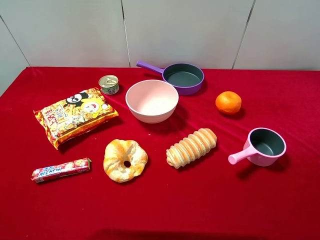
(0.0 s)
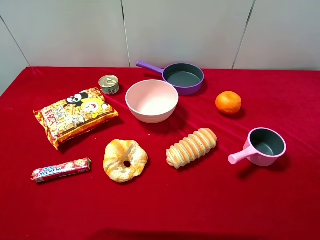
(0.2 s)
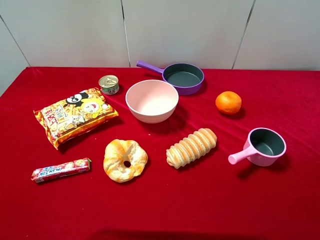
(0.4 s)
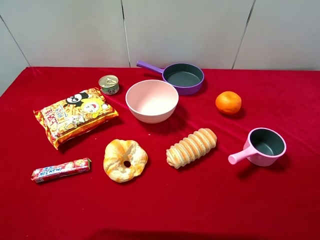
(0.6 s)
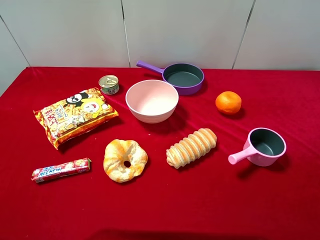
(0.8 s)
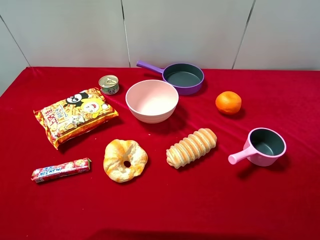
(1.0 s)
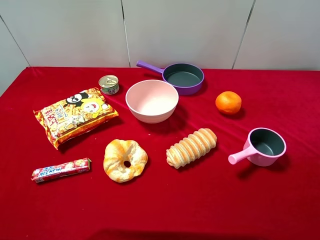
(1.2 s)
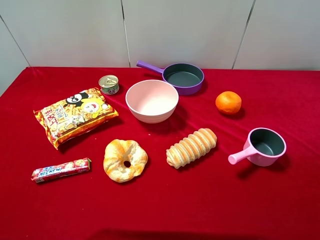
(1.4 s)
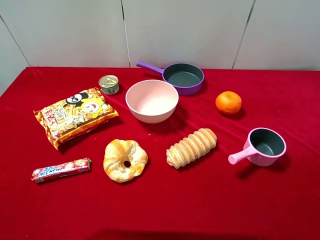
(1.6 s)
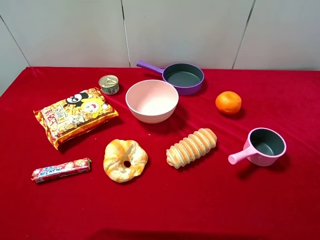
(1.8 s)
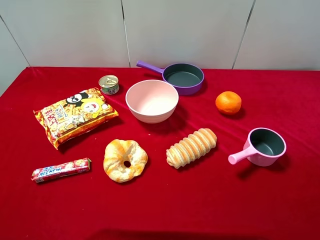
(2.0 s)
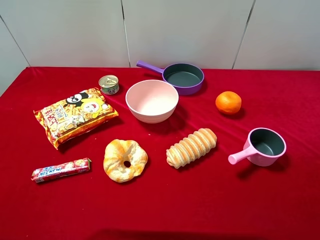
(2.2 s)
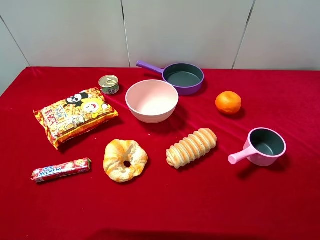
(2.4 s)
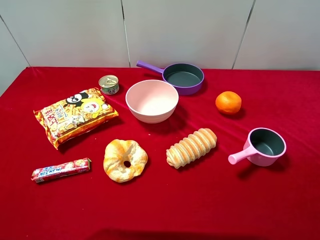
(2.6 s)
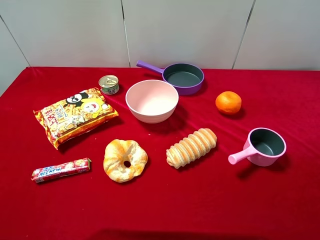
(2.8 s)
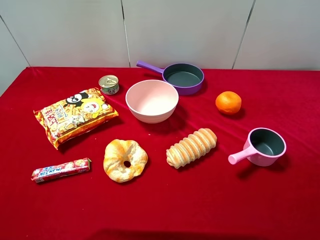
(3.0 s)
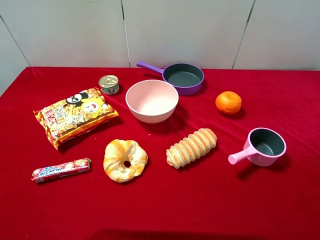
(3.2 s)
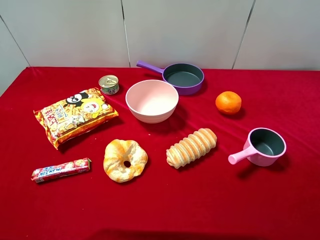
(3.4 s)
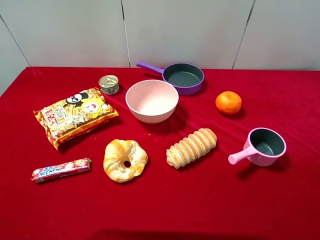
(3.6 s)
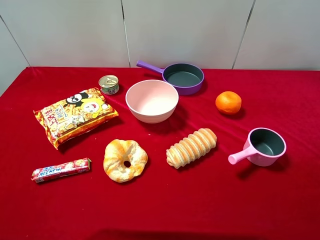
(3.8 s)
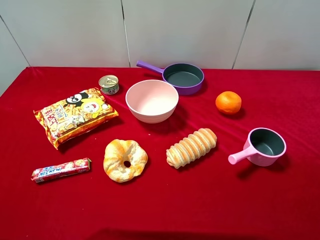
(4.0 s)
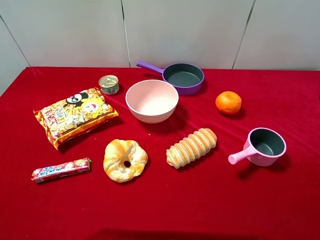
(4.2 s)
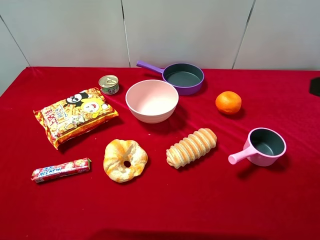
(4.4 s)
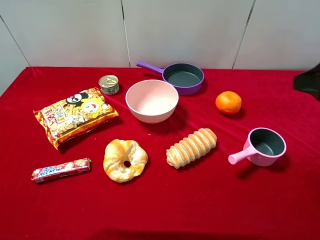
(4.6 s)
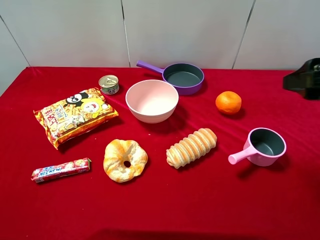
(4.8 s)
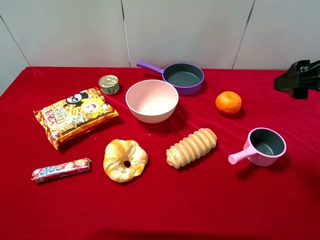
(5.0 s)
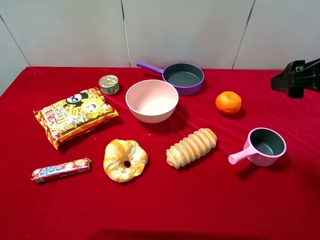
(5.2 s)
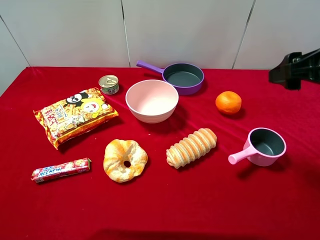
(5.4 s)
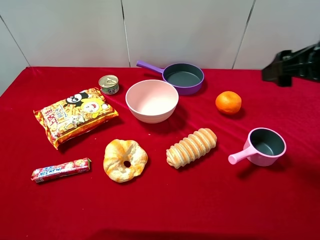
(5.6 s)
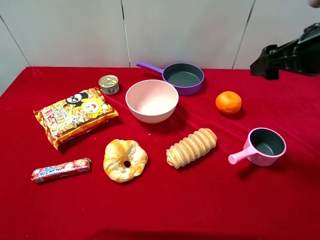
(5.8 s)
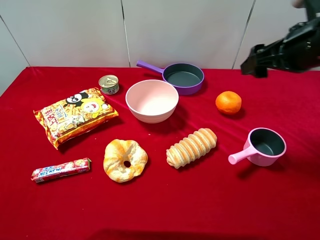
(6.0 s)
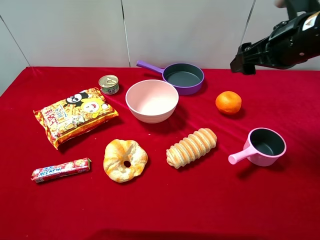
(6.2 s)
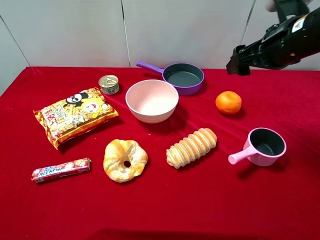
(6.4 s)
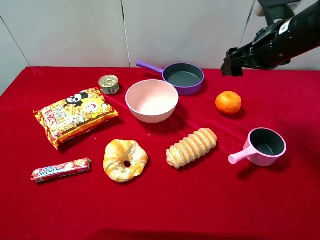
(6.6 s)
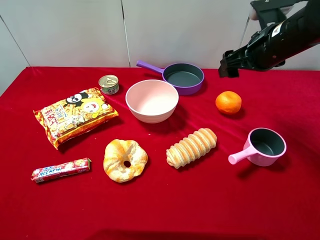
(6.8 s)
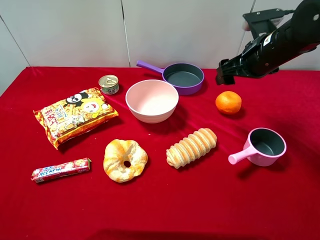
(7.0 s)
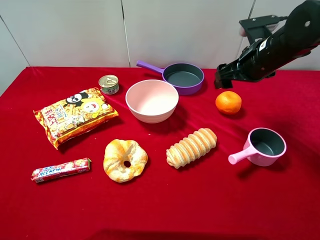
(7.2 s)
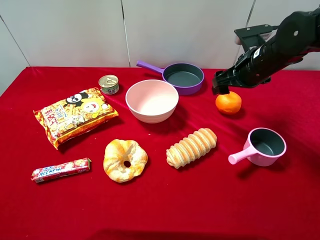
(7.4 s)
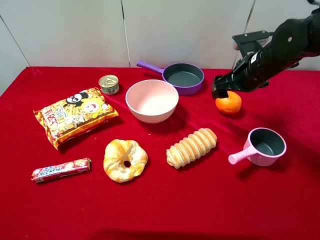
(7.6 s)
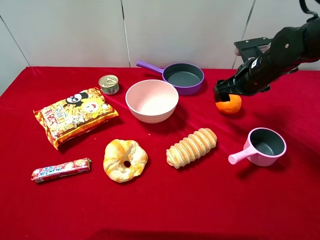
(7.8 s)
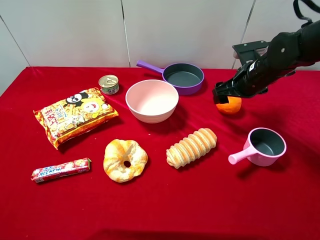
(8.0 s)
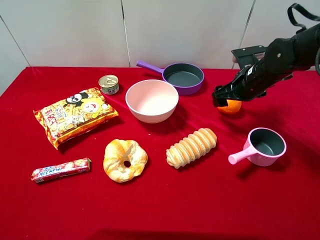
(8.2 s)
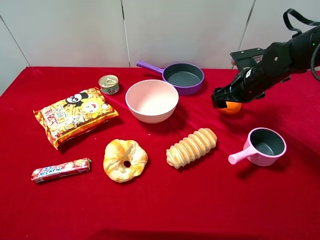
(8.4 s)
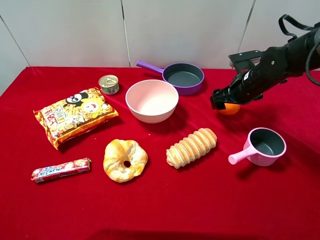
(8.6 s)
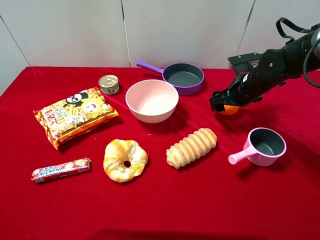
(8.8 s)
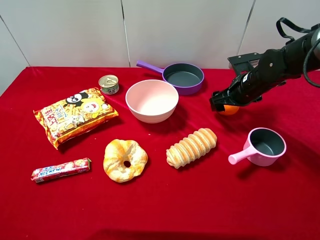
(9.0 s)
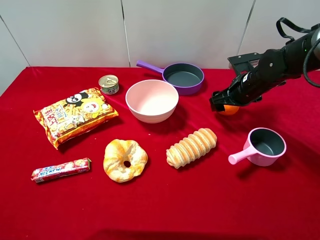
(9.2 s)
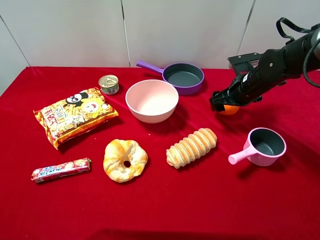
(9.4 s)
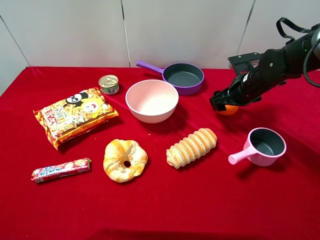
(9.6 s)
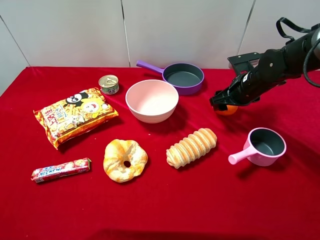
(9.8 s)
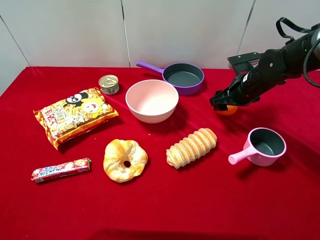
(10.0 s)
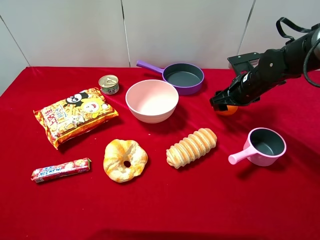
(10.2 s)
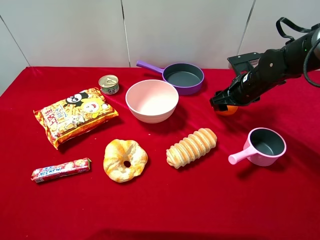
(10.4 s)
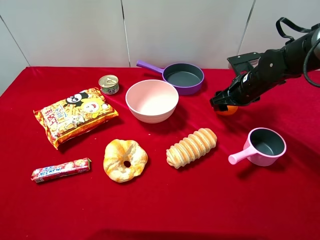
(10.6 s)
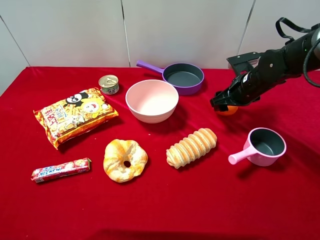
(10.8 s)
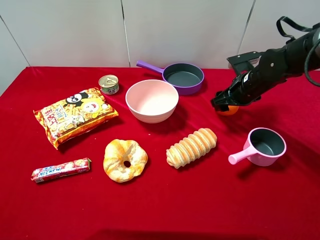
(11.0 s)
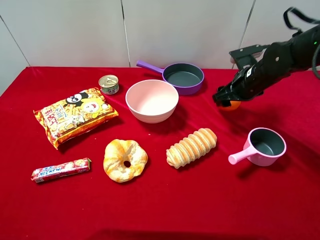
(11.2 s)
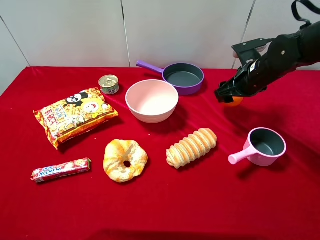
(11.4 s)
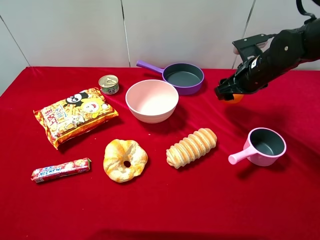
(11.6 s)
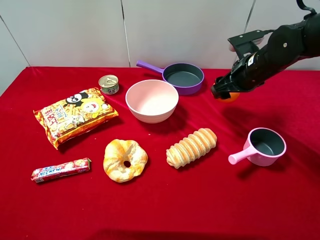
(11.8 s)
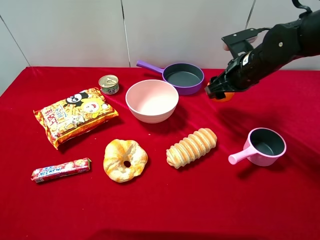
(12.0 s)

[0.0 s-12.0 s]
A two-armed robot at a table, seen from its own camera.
Task of the whole recording: pick up an item with a gripper and place it in a random container on the desktop.
0.0 to 3.0 s: Neither gripper changes place.
4.4 to 6.0 s: The right gripper moves forward, about 15 cm.
6.0 to 7.6 s: The right gripper travels downward and forward by roughly 15 cm.
7.6 to 9.0 s: The right gripper moves downward, about 5 cm.
10.4 to 12.0 s: The right gripper heads upward, covering approximately 5 cm.

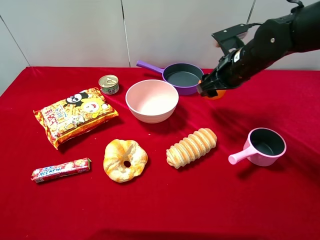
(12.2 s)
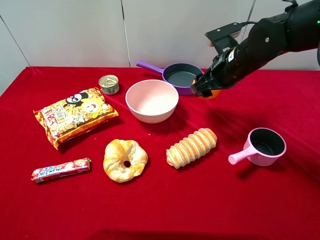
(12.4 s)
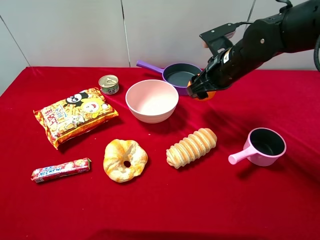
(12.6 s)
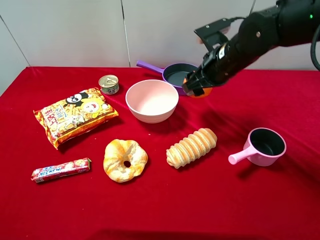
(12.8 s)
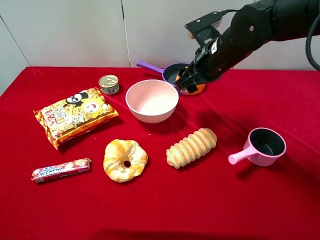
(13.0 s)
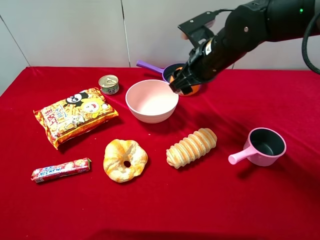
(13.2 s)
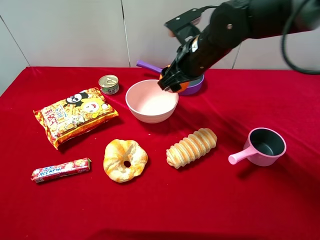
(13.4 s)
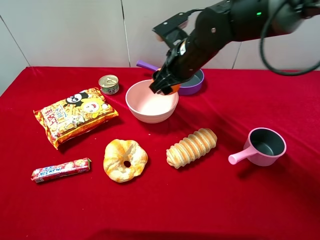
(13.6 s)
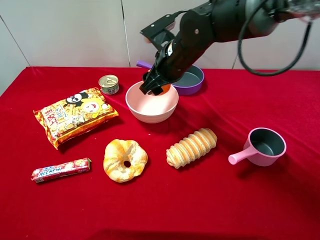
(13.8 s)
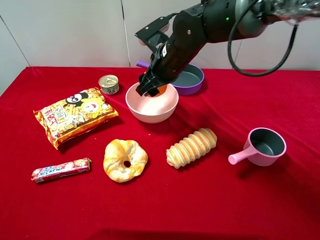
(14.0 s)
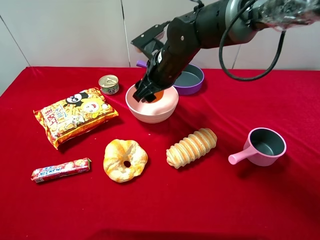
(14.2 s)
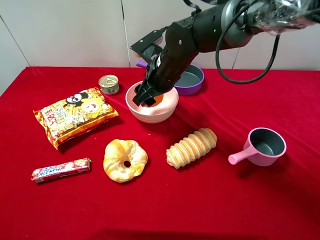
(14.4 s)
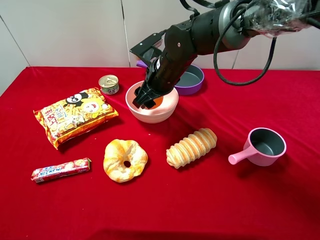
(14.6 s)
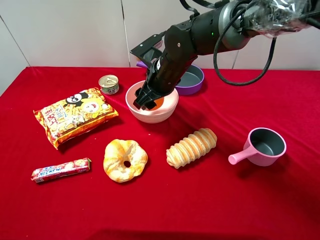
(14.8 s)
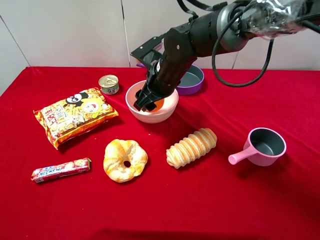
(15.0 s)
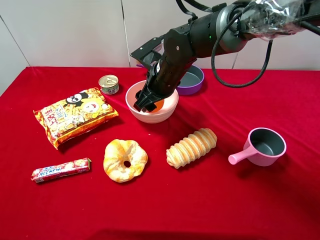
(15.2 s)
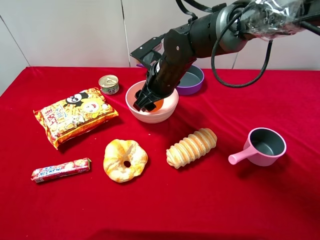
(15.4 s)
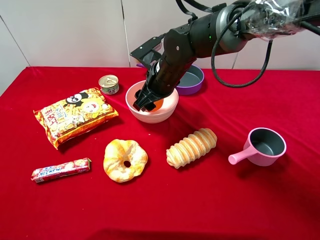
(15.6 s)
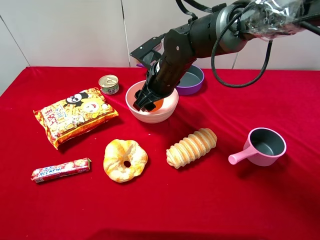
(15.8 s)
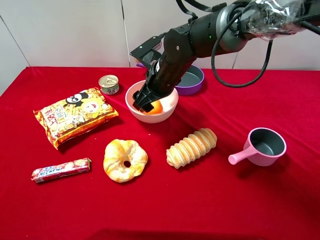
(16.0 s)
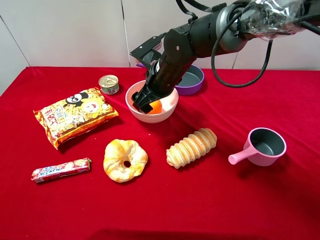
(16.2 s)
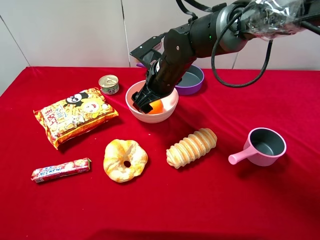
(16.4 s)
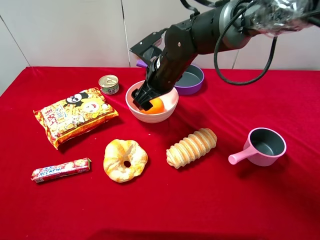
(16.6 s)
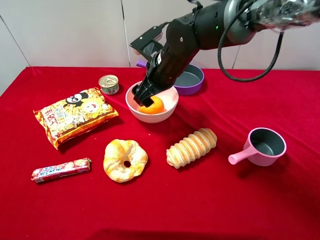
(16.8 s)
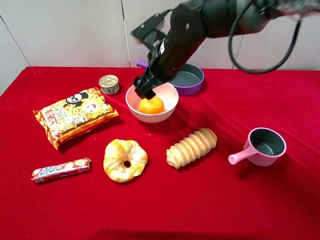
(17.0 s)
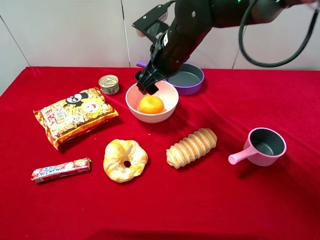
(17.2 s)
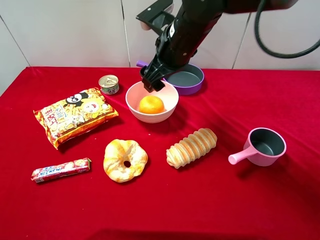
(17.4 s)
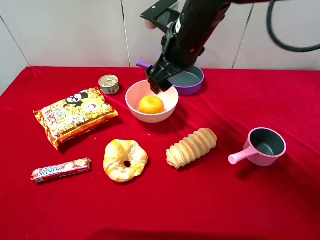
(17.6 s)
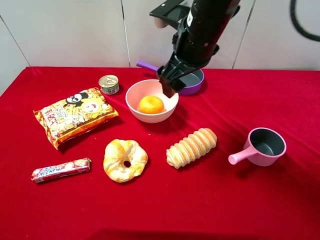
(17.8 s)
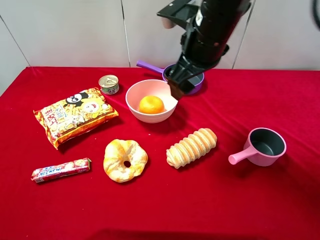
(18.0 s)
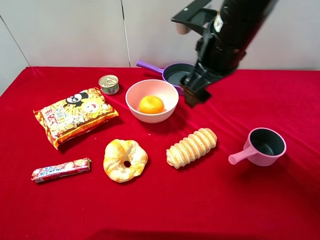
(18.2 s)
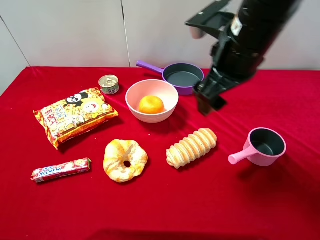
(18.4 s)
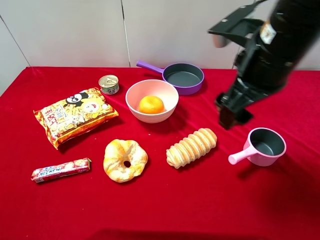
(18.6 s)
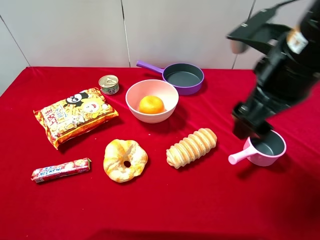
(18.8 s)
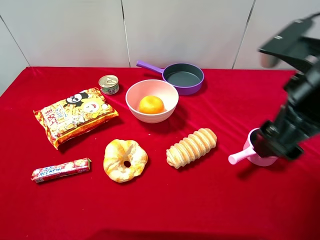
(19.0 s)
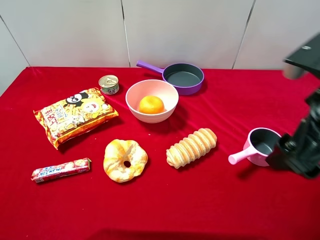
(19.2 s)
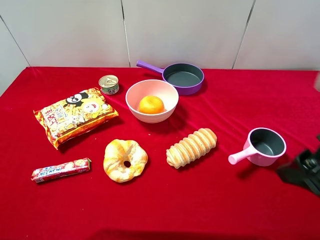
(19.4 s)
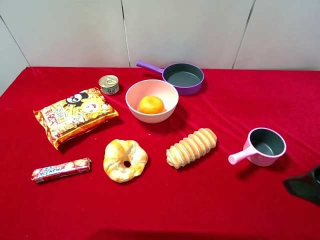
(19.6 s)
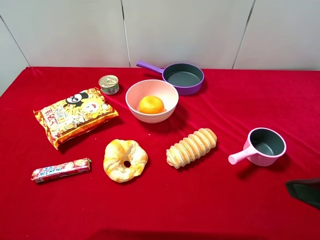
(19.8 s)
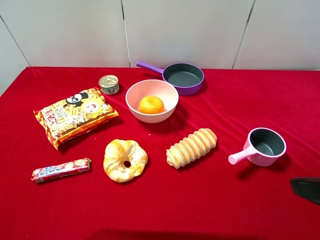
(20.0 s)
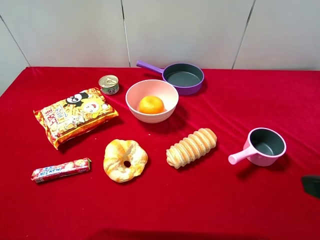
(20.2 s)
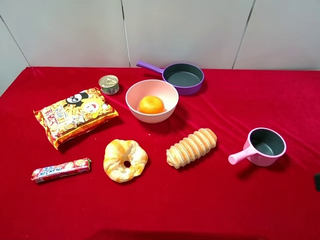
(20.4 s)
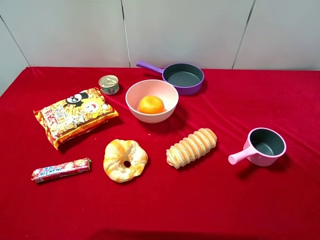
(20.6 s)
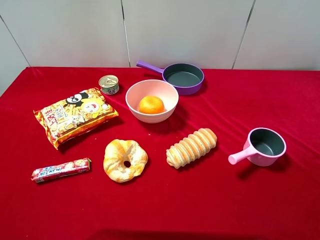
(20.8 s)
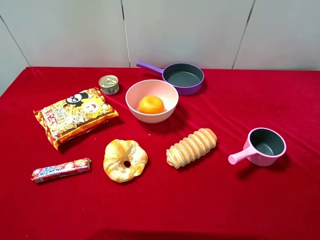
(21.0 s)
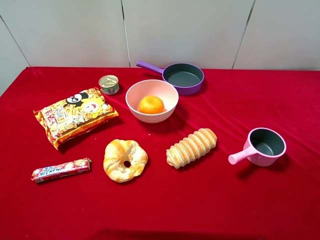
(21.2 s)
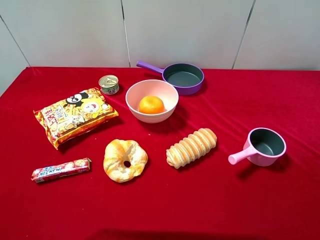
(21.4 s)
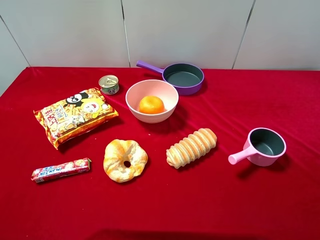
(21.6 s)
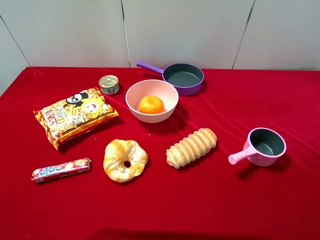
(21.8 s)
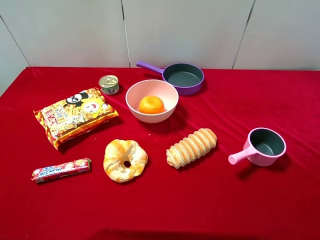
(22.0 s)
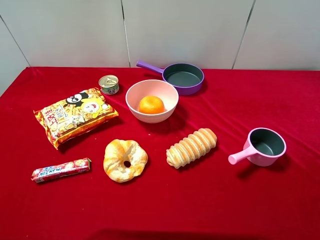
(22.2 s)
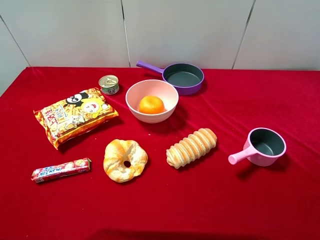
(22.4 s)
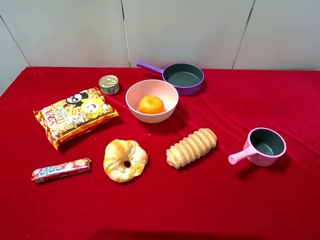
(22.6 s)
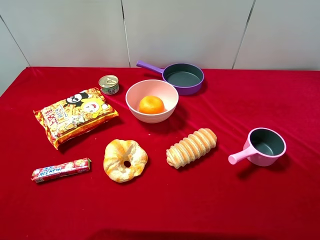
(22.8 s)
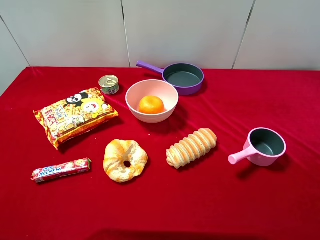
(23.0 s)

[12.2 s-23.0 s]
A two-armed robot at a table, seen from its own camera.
Task of the whole recording: pick up an item with a gripper and place it in a random container on the desktop.
12.2 to 13.8 s: The right gripper is displaced to the left by about 15 cm.
13.8 to 15.2 s: The grippers move only a little.
15.2 to 16.8 s: The right gripper opens up.
16.8 to 18.4 s: The right gripper goes roughly 20 cm upward, backward and to the right.
18.4 to 20.0 s: The right gripper is displaced backward and to the right by some 25 cm.
